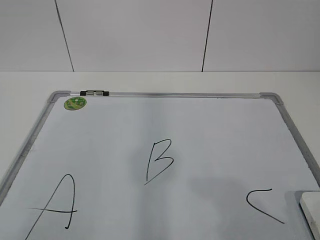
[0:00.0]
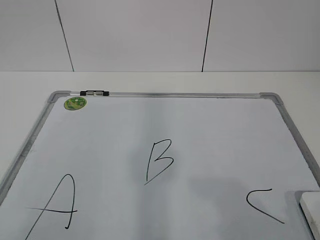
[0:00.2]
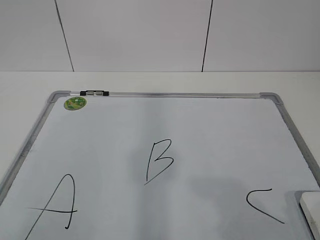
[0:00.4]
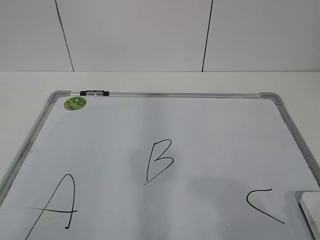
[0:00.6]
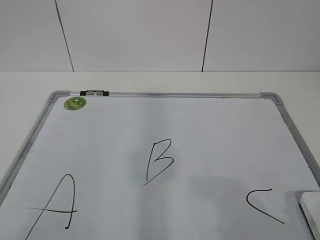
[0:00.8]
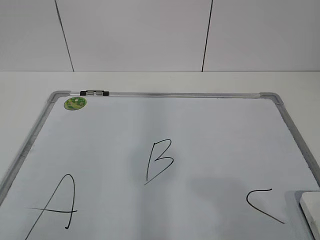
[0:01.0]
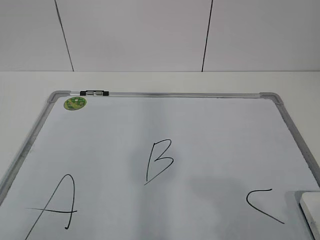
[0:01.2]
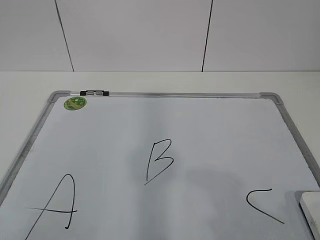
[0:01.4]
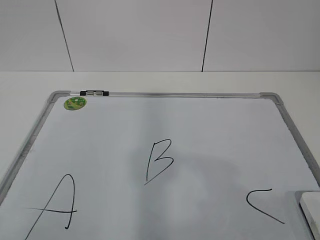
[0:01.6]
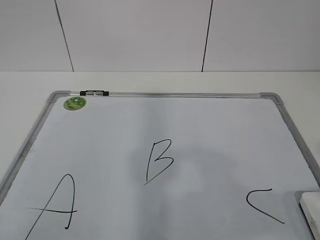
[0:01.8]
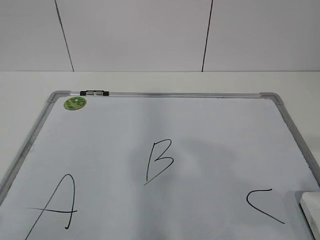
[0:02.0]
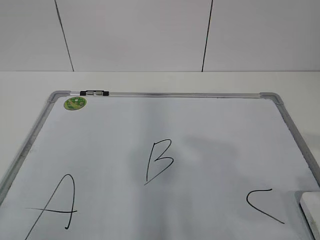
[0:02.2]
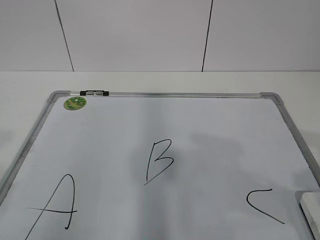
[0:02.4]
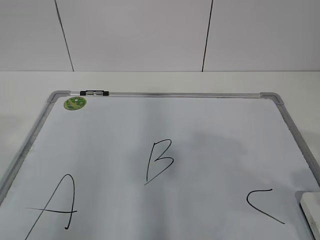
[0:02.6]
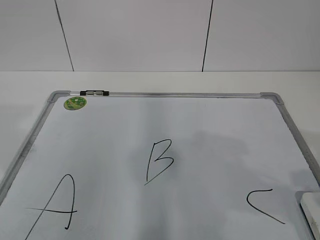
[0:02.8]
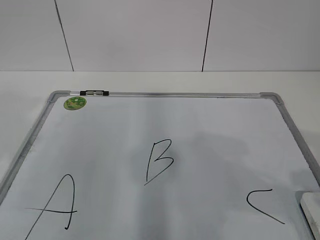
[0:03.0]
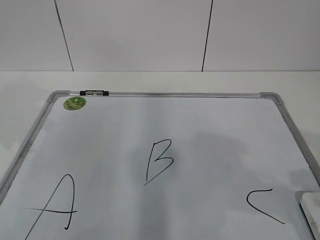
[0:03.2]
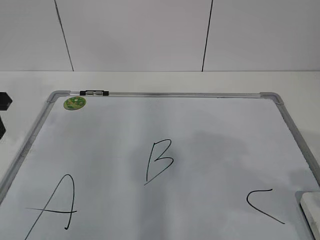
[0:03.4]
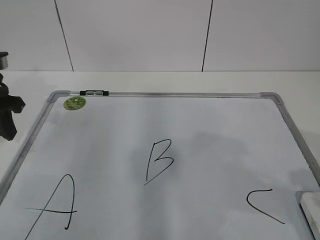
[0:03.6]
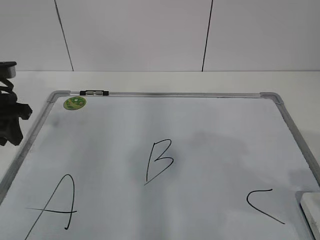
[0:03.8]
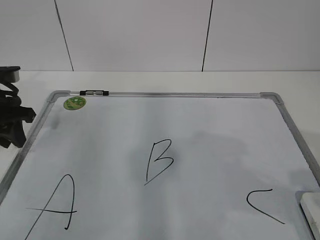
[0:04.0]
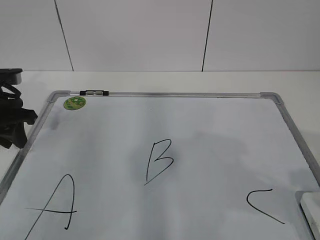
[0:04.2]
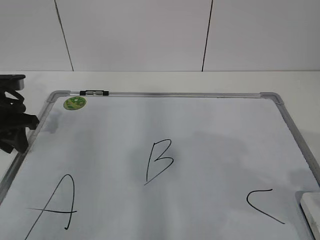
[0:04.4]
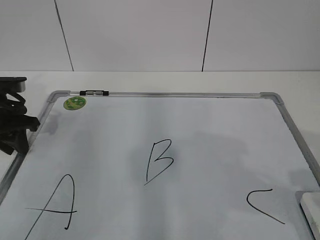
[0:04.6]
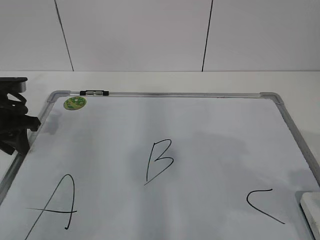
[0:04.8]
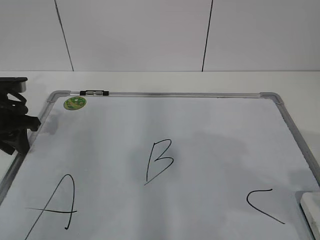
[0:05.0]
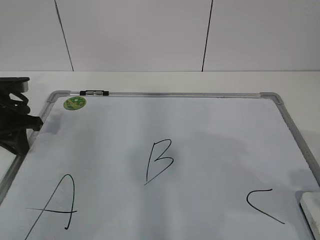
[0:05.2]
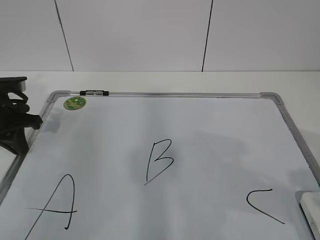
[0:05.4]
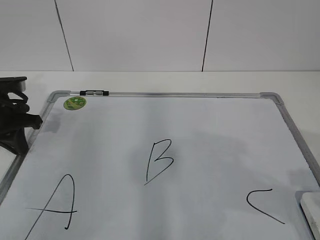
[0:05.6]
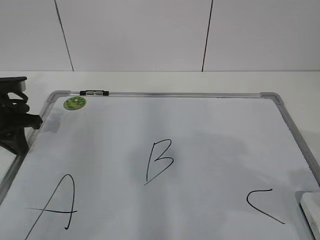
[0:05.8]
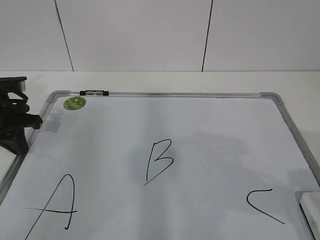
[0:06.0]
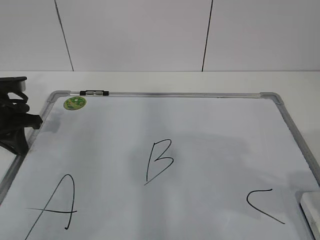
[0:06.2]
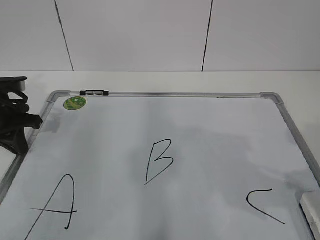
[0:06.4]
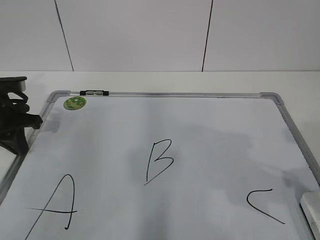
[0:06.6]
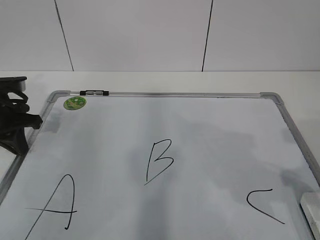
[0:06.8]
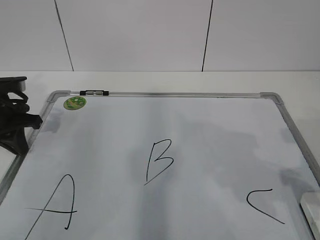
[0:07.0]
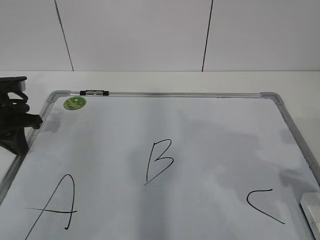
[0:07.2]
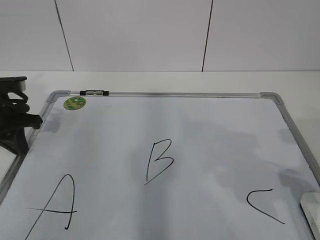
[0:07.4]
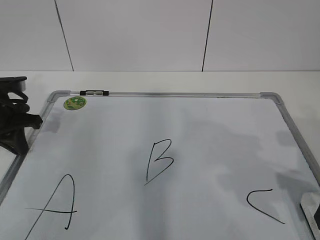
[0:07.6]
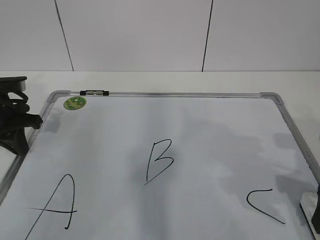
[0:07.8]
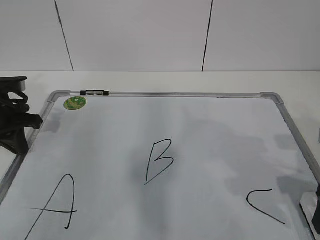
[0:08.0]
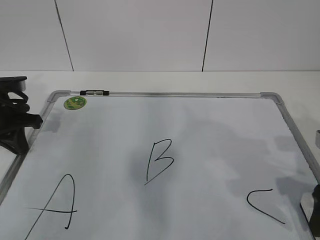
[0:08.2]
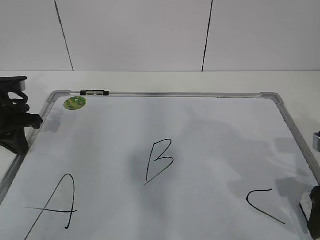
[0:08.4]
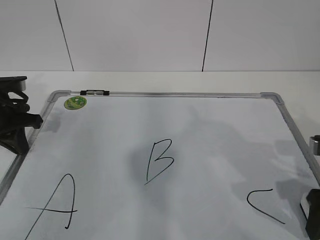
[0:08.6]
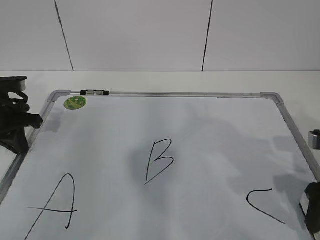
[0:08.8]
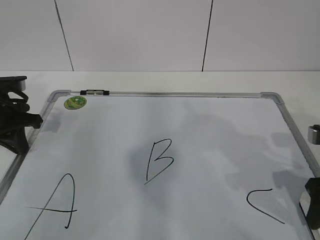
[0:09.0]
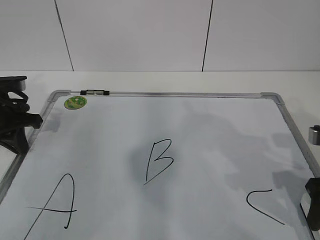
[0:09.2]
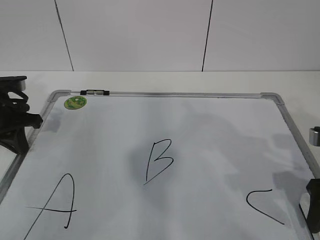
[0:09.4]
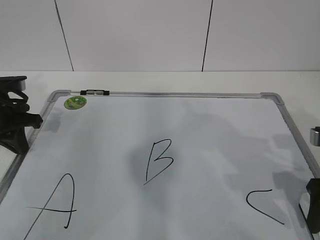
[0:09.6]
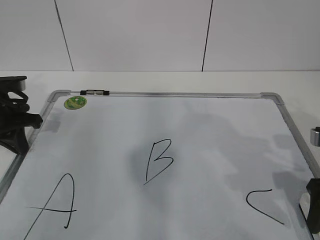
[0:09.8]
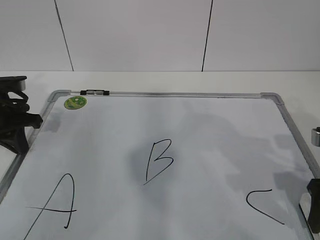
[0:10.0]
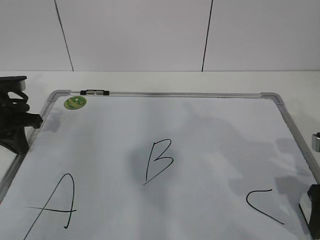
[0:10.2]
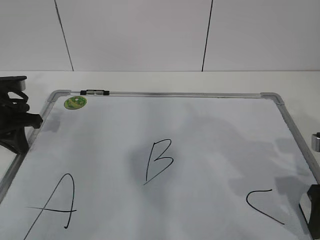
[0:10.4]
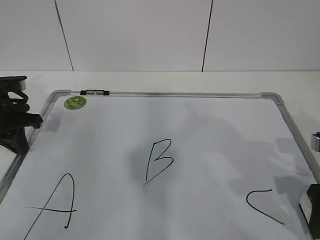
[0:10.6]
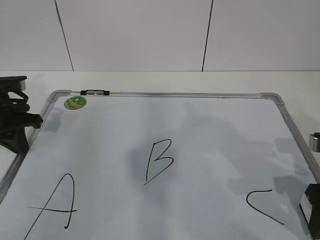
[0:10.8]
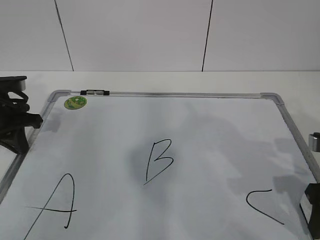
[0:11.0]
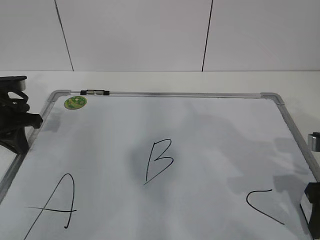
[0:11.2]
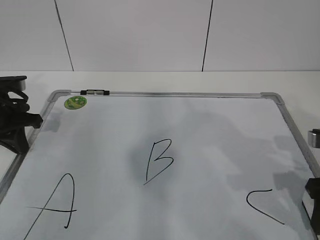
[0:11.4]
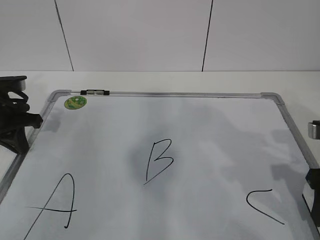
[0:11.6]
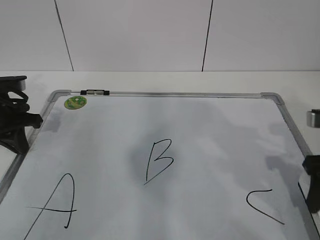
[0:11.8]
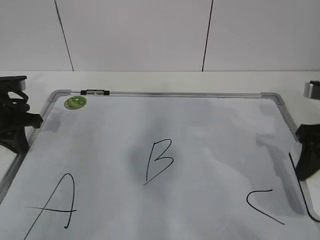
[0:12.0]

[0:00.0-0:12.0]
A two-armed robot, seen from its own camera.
Task of the whole recording: pick up the eraser on the blackboard and erase the letter "B".
Step, 0:00.0 to 0:04.2: Hold the drawing board steady with your left hand.
0:03.0 to 0:04.4: The left gripper shifts roughly 20 cm forward and downward.
0:04.4 to 0:06.0: The left gripper closes up.
0:06.0 to 0:07.6: The right gripper heads forward and downward, covering some 10 cm.
0:07.6 to 0:09.0: The right gripper closes its fingers.
0:09.0 to 0:10.4: The right gripper opens up.
0:10.4 to 0:12.0: The right gripper ends up approximately 5 cm from where it was, and closes.

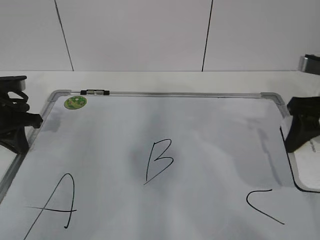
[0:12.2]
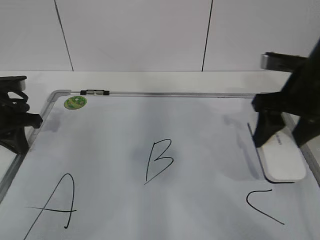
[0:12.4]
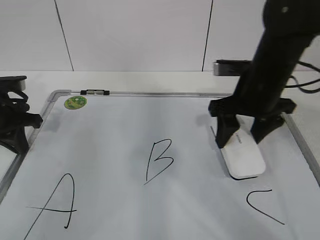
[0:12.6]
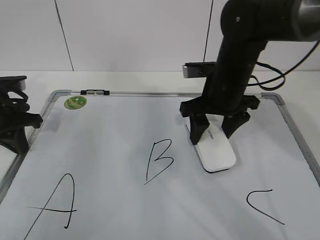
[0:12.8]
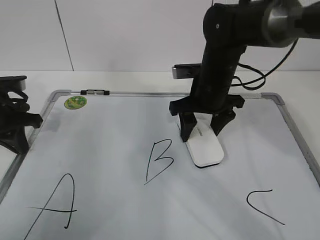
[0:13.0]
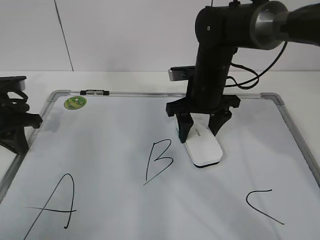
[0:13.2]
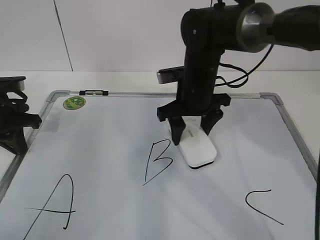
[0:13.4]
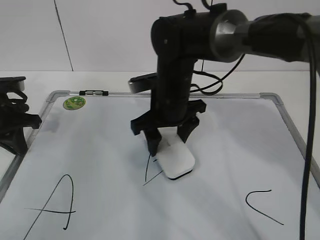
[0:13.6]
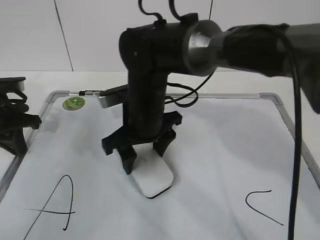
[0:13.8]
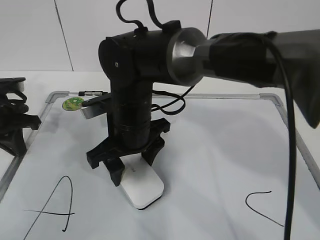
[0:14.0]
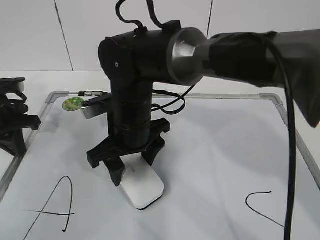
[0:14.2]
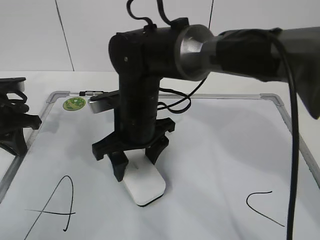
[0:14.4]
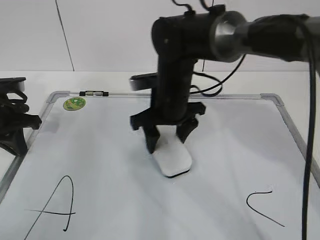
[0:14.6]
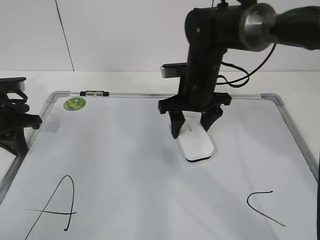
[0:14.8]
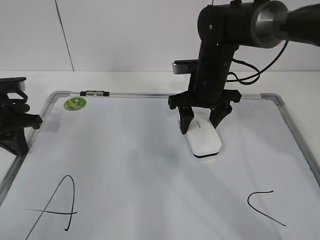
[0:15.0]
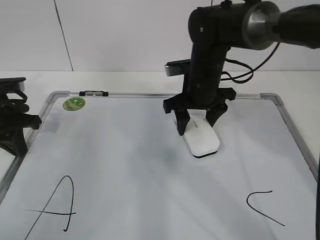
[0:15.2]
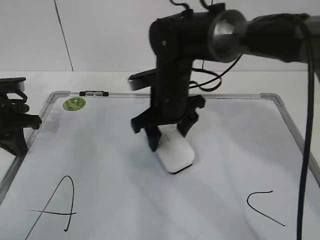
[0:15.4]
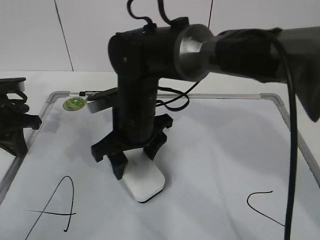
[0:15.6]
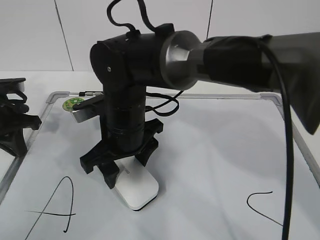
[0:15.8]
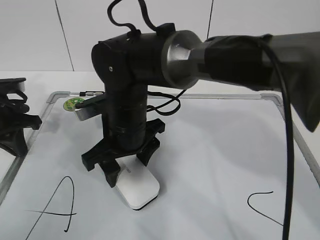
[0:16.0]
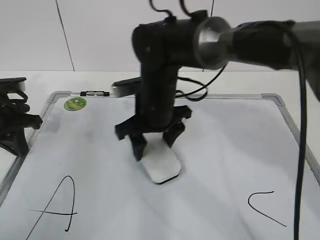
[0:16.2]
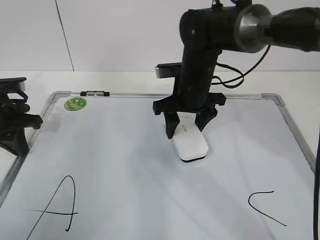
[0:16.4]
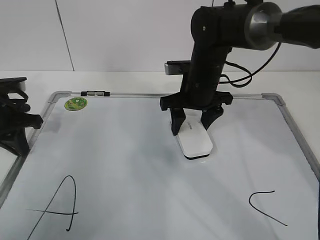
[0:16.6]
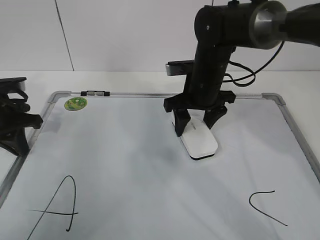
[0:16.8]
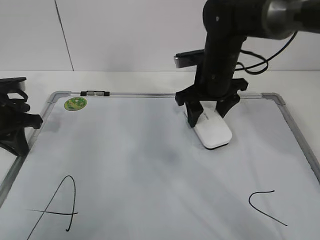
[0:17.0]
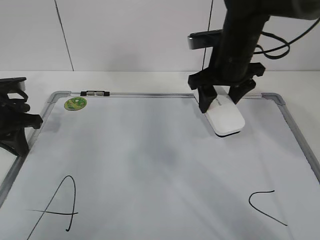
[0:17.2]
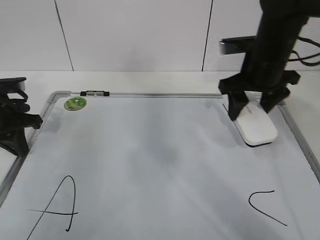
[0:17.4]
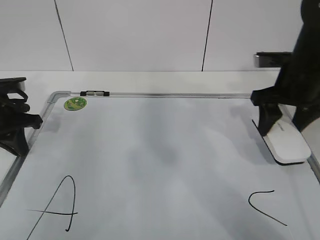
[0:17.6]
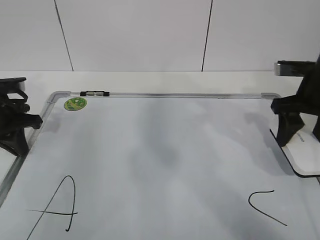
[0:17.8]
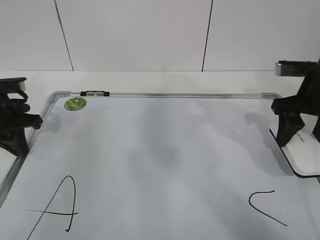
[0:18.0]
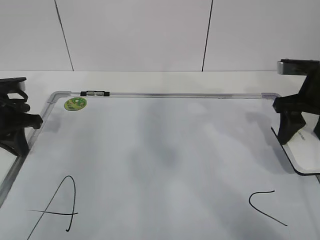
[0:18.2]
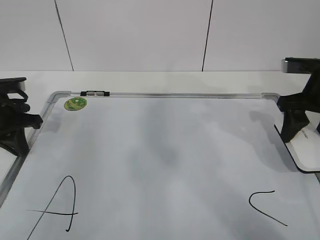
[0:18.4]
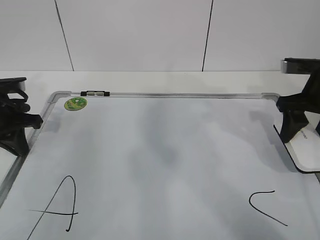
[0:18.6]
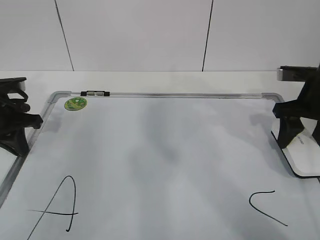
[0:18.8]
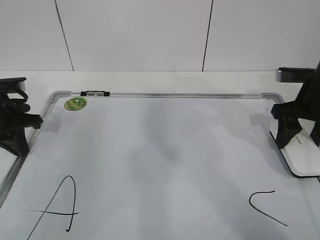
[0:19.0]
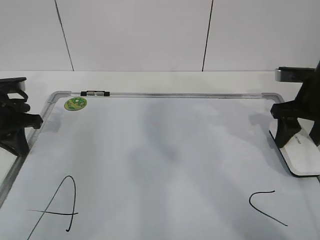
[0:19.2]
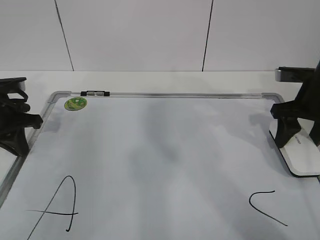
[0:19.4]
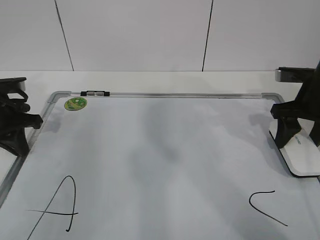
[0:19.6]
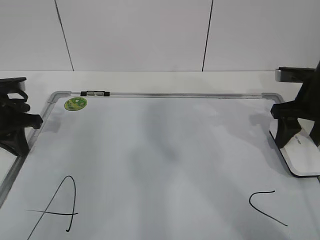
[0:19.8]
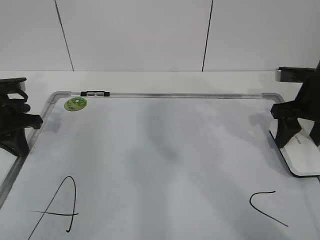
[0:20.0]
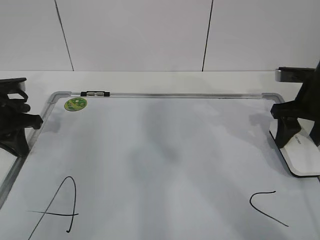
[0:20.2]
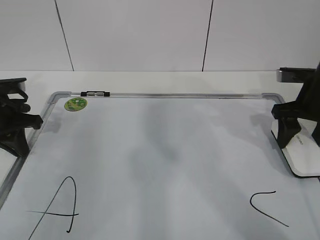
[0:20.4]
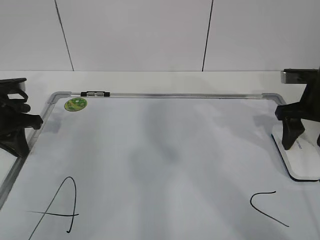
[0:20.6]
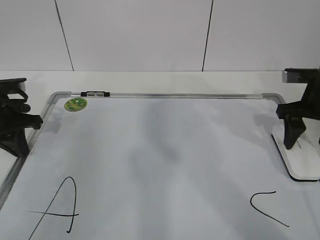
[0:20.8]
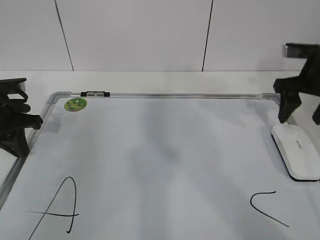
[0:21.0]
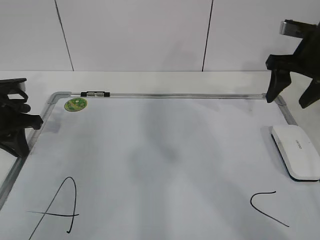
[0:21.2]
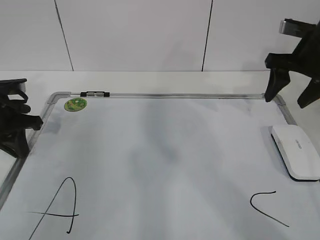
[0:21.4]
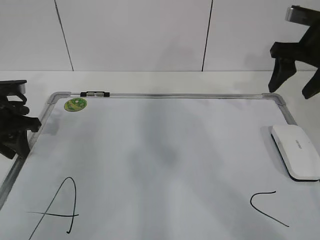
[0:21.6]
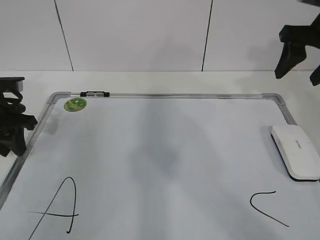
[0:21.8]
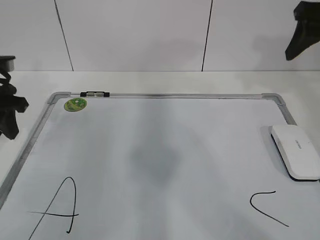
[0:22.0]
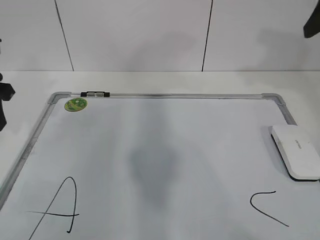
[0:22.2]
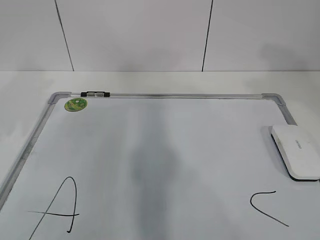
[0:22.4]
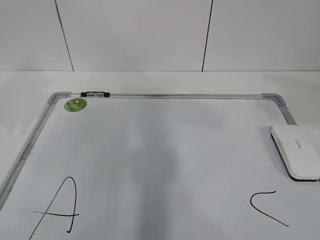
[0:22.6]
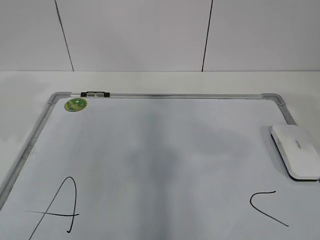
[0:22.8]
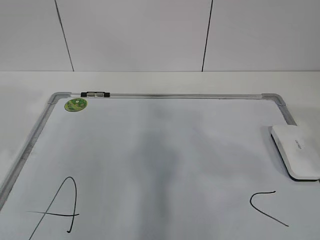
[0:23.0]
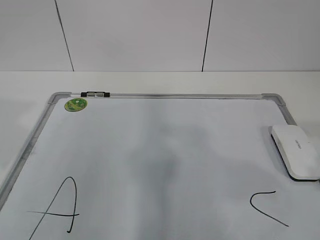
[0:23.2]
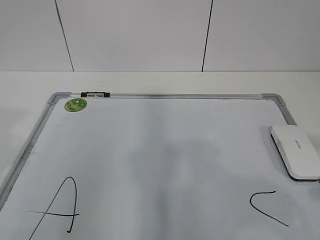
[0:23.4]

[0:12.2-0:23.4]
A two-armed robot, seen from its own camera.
Task of the whole recording: pick up the eraser on the blackboard and erase the letter "B".
Step, 0:14.2 to 0:17.0: Put down the eraser with your right hand.
0:12.2 to 0:13.8: The right gripper travels to the left by approximately 25 cm.
0:13.8 to 0:15.4: The right gripper goes to the right and returns, about 10 cm each way.
0:15.4 to 0:17.0: The right gripper is displaced to the right by some 10 cm.
0:17.0 to 0:18.6: The right gripper travels to the right by approximately 15 cm.
0:18.6 to 0:20.2: There are only small adjustments of the grippers.
0:20.2 to 0:21.8: The left gripper opens up, while the right gripper heads upward, covering roughly 10 cm, and opens its fingers.
0:21.8 to 0:23.4: The left gripper travels backward and upward by roughly 25 cm. Meanwhile the right gripper shifts some 30 cm backward.
